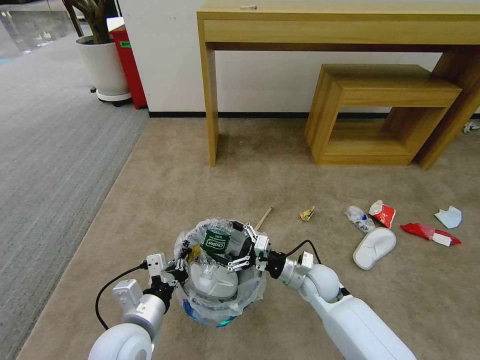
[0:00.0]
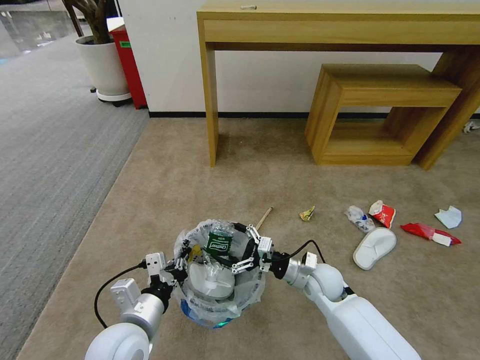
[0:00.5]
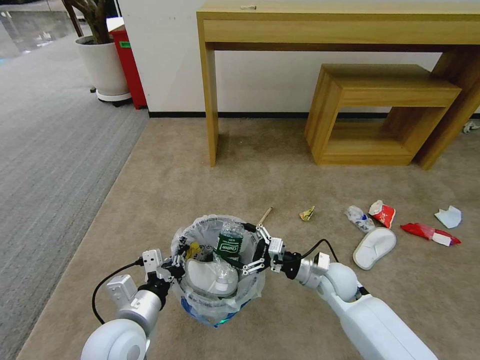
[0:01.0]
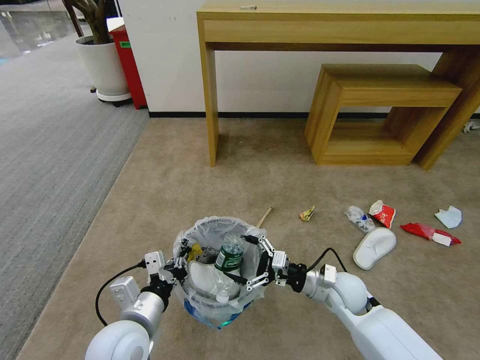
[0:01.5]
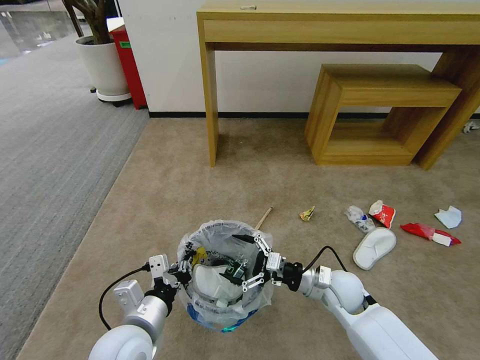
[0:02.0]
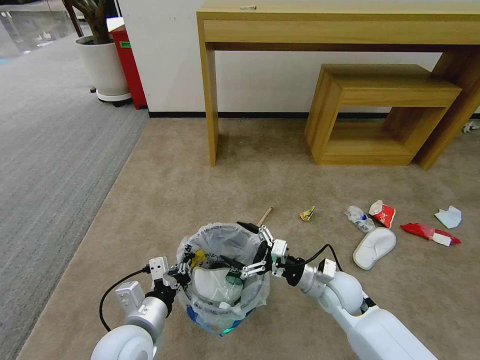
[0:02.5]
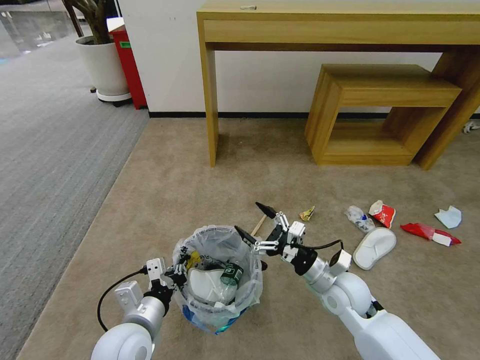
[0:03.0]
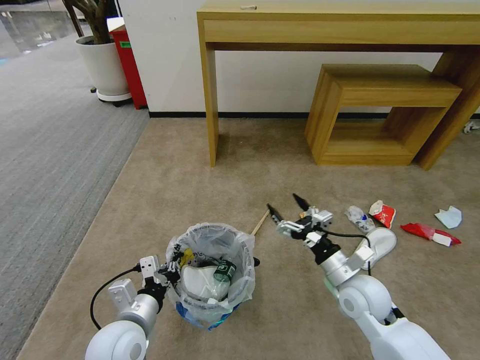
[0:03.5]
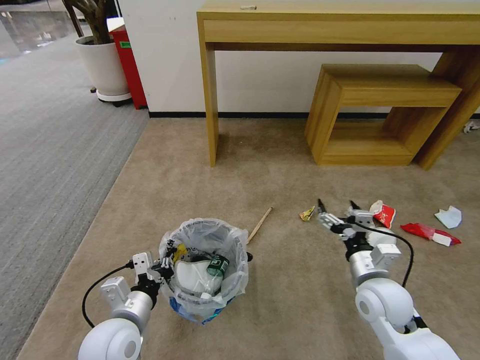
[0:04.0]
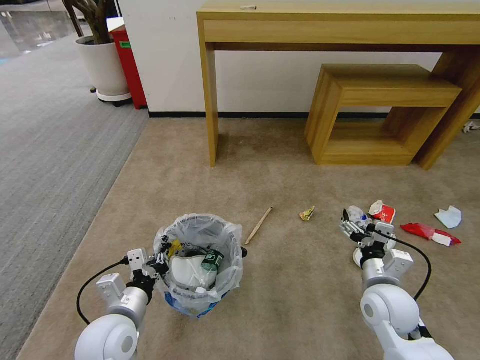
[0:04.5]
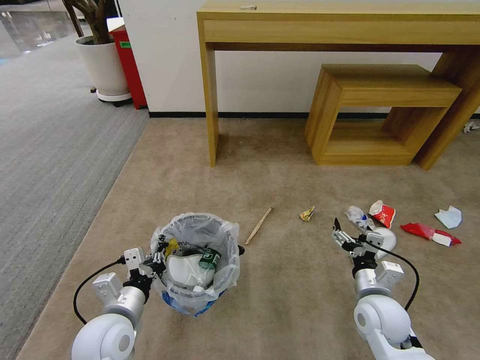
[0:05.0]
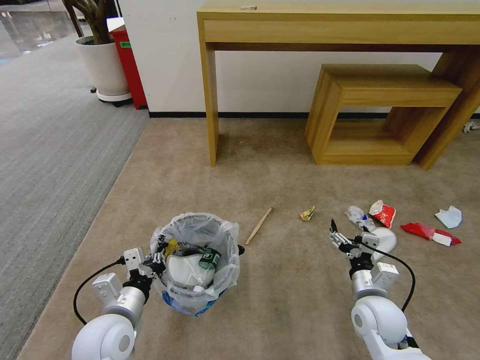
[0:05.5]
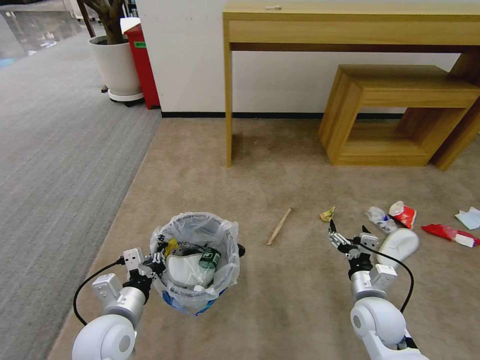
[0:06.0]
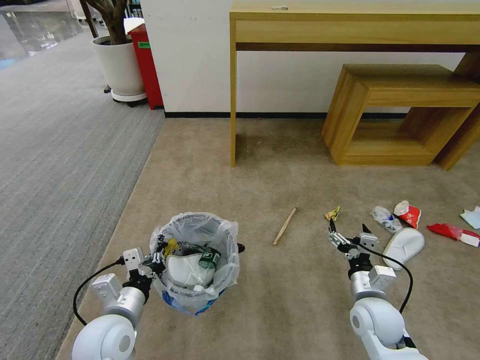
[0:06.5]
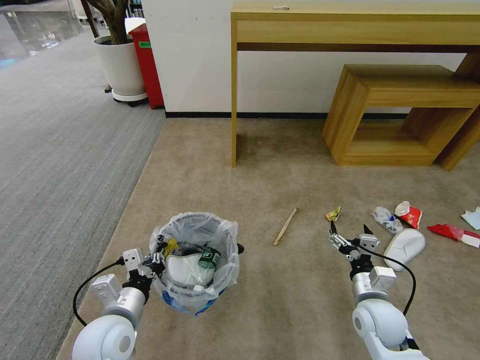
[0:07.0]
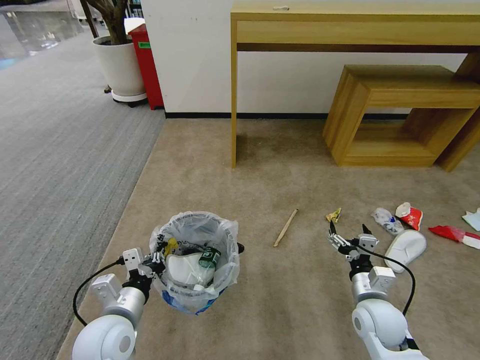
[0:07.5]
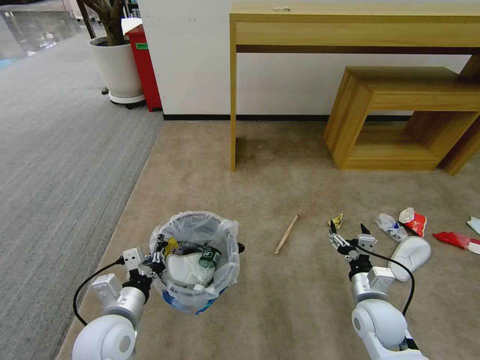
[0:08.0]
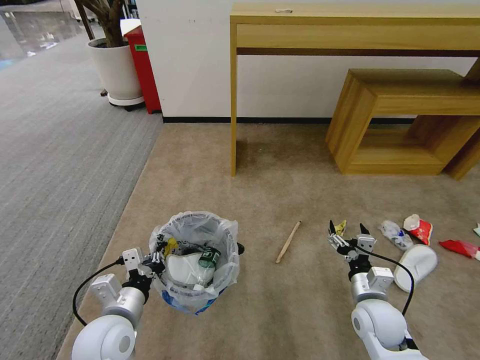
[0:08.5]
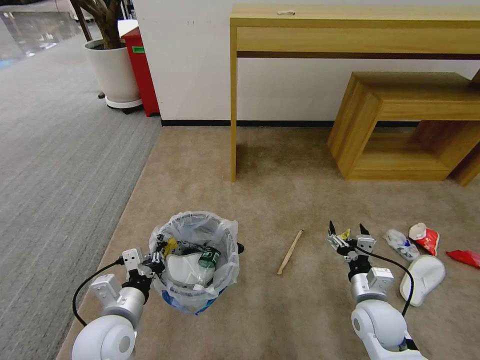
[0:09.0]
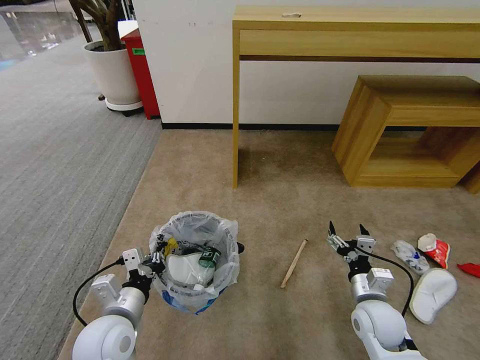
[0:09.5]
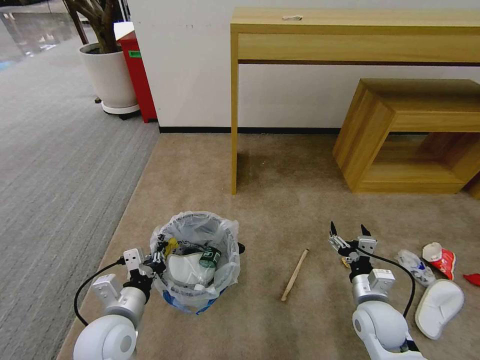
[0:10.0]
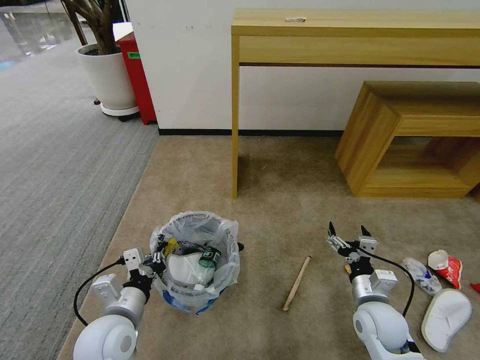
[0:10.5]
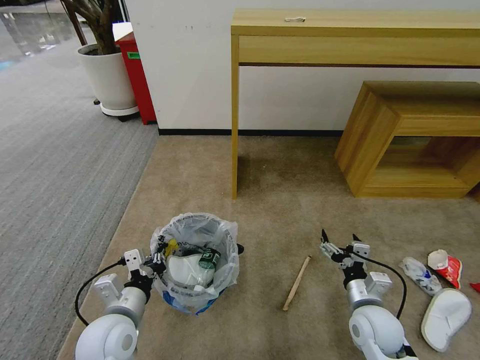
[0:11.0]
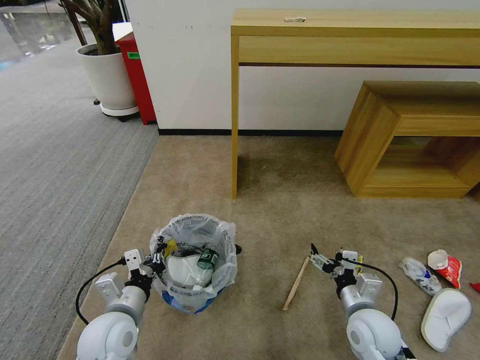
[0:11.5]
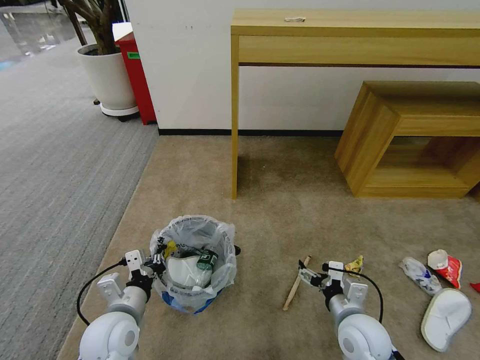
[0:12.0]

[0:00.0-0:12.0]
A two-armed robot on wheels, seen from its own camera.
Task of the whole recording: Pick up the trash bin and place the garbage on the floor into it.
0:00.0 to 0:02.0: The right gripper ends up roughly 5 cm from where it was.
0:02.0 to 0:04.0: The right gripper travels upward and to the right by roughly 10 cm.
0:04.0 to 0:06.0: The right gripper shifts roughly 5 cm downward.
0:06.0 to 0:08.0: The grippers stay close to where they were, moving slightly.
0:10.0 to 0:12.0: The right gripper shifts by approximately 5 cm.

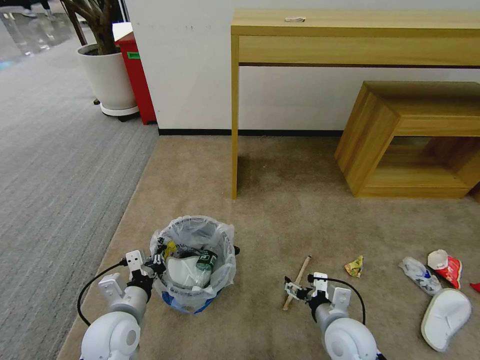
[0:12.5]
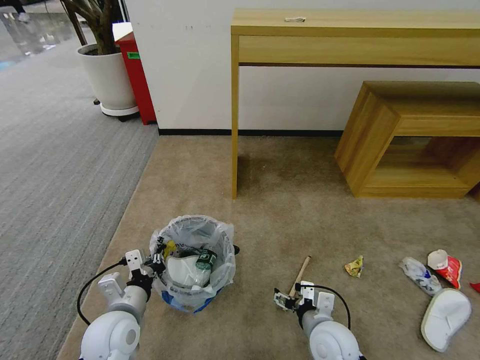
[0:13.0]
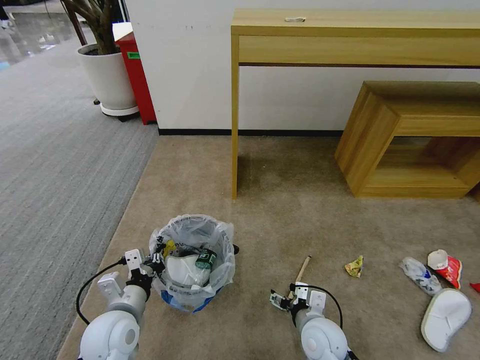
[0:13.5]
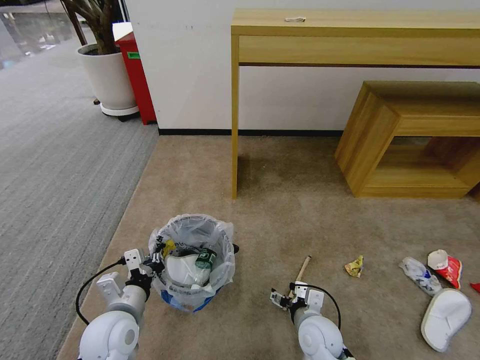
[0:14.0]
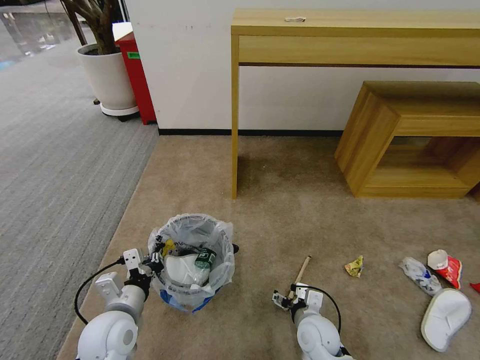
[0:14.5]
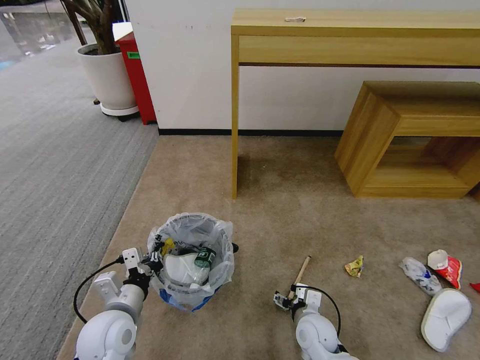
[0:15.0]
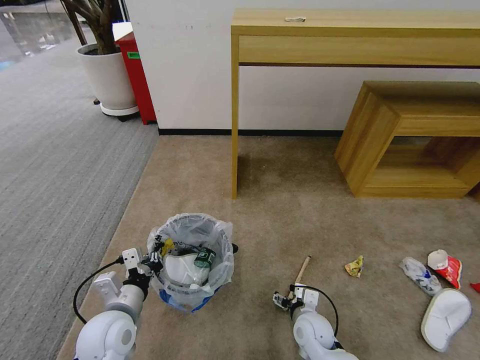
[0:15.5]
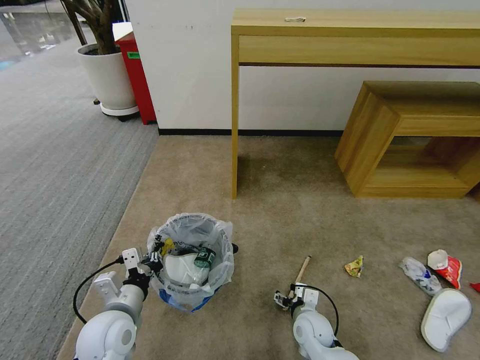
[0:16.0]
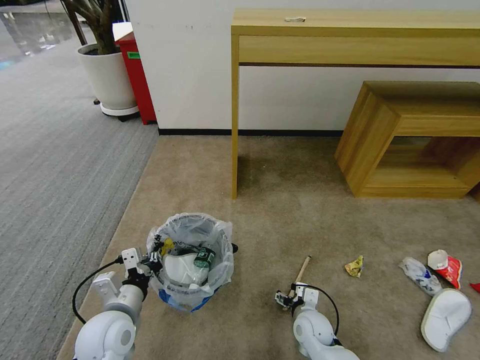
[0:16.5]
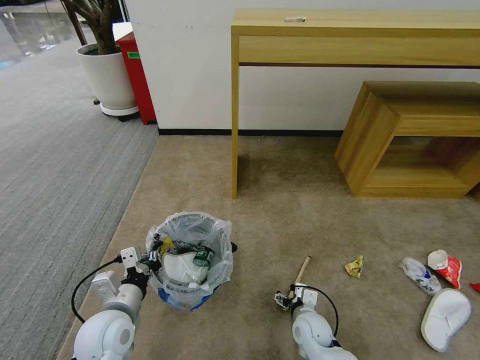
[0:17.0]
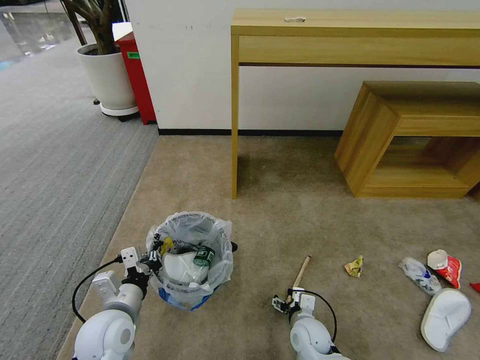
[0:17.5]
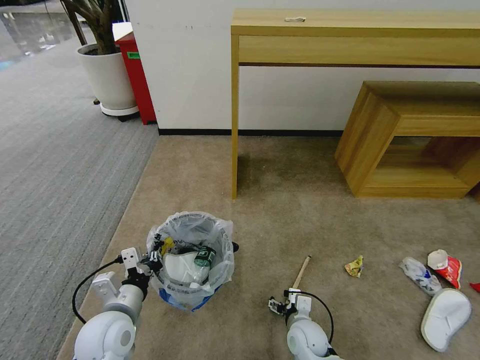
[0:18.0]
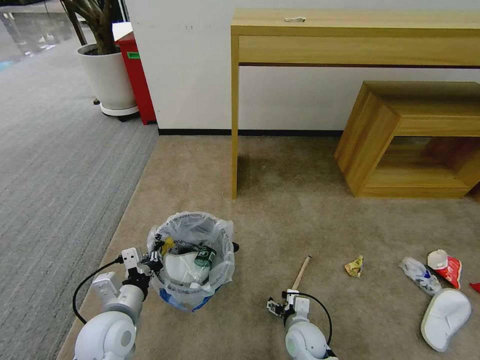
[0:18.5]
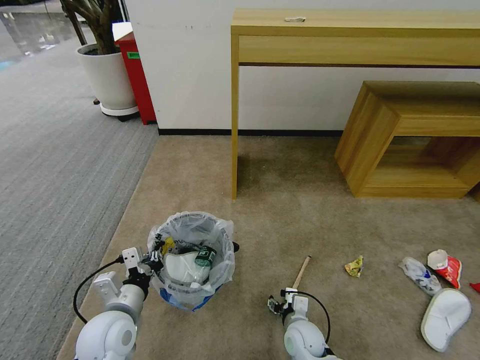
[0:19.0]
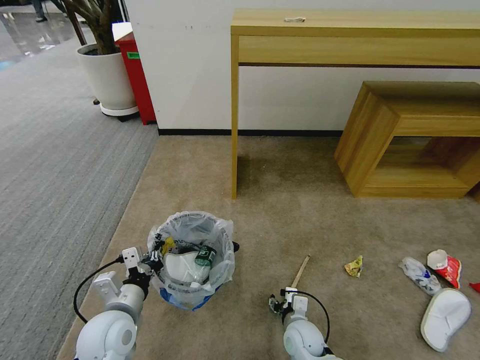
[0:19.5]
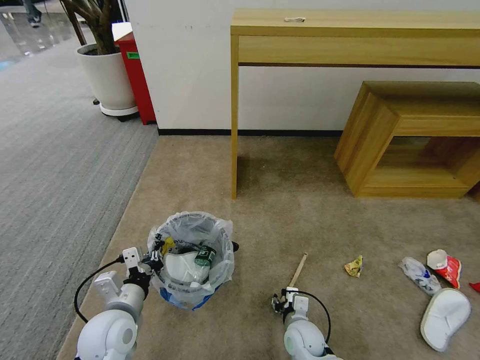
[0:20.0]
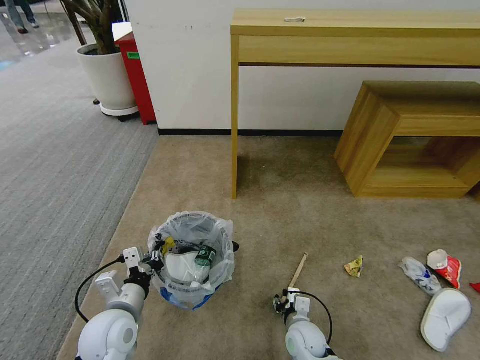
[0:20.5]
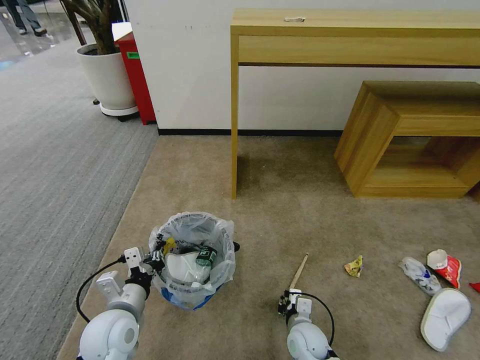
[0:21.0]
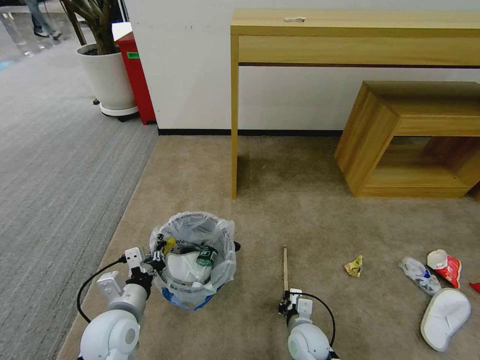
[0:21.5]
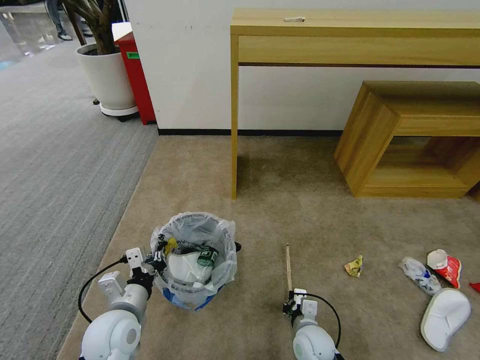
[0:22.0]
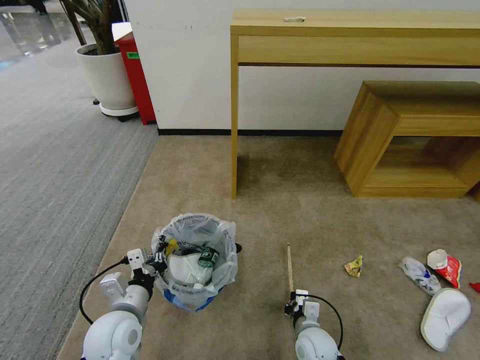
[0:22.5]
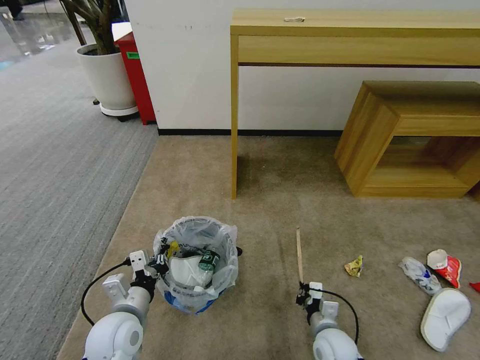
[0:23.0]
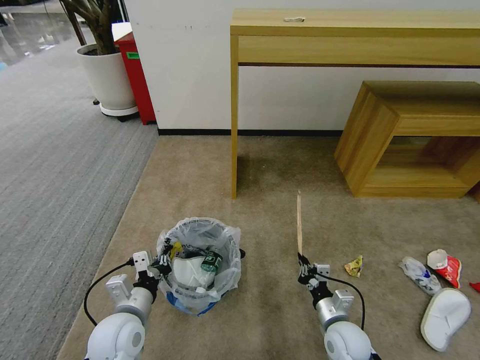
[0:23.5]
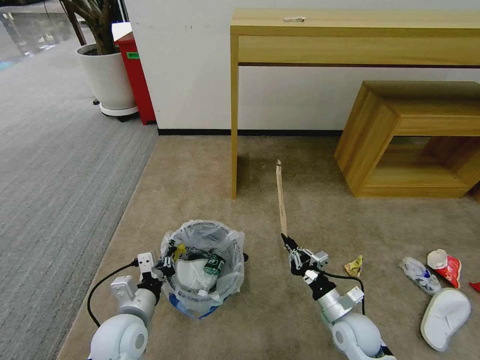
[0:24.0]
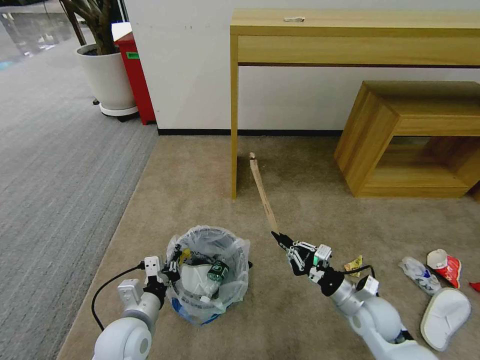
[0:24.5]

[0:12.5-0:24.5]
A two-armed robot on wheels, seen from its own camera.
Task of the whole recording: Pick up the trash bin and place the garbage on the floor into it.
0:12.5 to 0:14.5: The right gripper is displaced downward by about 10 cm.
0:14.5 to 0:16.5: The right gripper moves roughly 5 cm.
0:16.5 to 0:18.5: The grippers move only a little.
0:20.5 to 0:22.5: The right gripper closes.
0:22.5 to 0:24.5: The right gripper shifts some 15 cm upward and to the right.

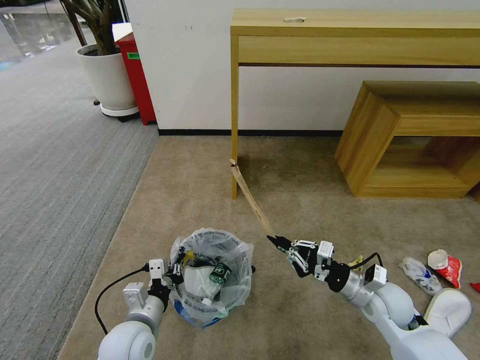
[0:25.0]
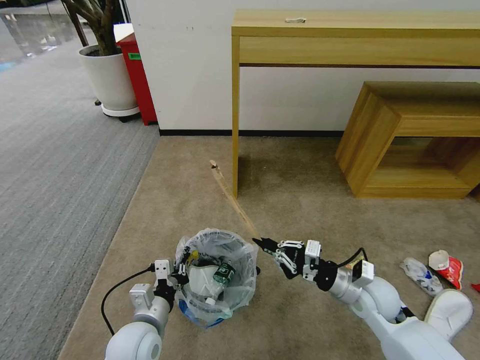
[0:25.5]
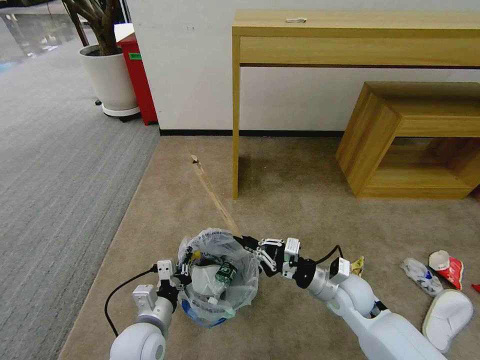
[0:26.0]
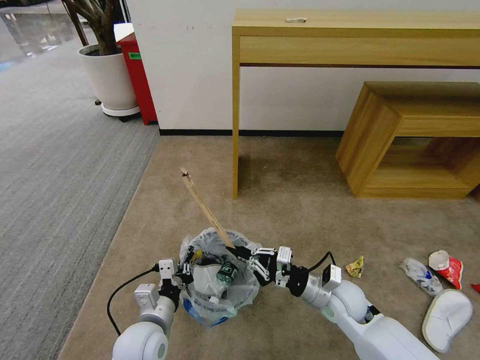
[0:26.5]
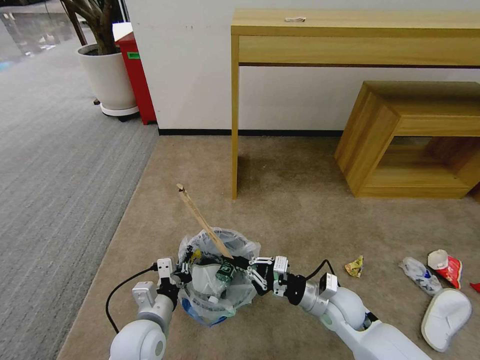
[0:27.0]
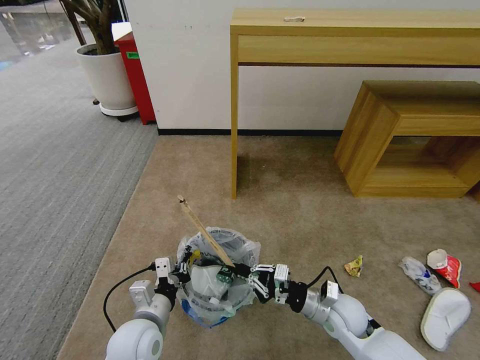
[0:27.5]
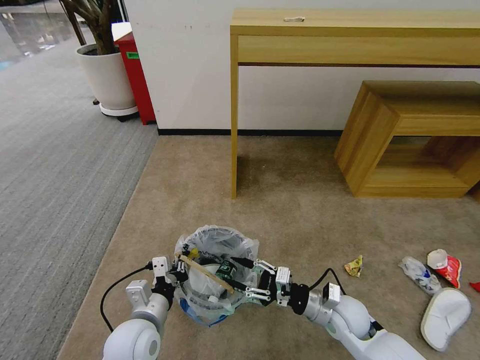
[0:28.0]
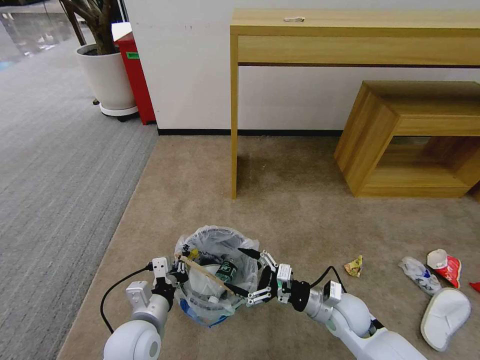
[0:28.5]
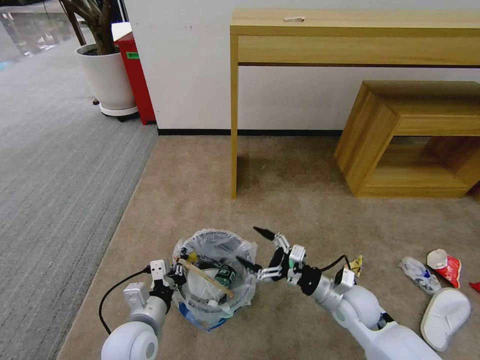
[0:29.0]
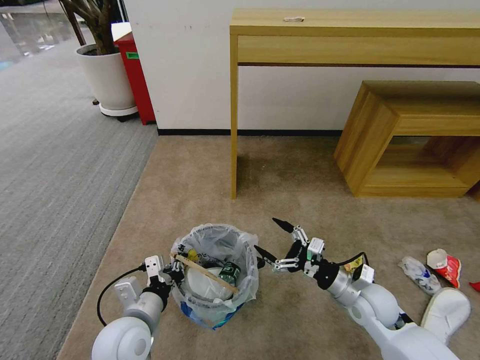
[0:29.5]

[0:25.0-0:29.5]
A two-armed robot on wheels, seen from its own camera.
Task of the whole recording: Pick up the trash bin and place the garbage on the floor into it.
0:25.0 to 0:27.0: The right gripper heads to the left, covering approximately 10 cm.
0:27.0 to 0:29.5: The right gripper goes some 5 cm to the right, and opens its fingers.
